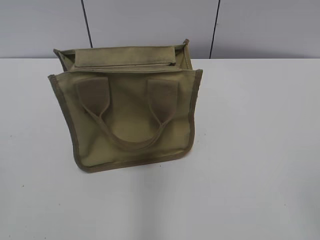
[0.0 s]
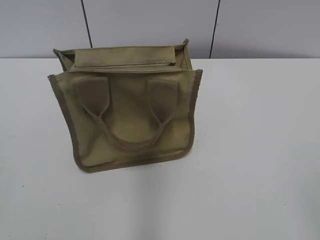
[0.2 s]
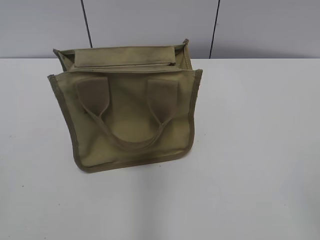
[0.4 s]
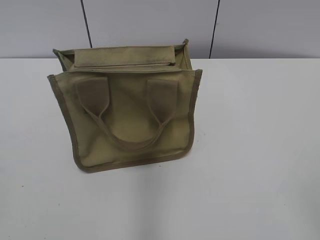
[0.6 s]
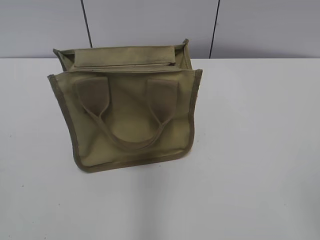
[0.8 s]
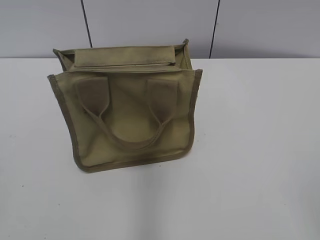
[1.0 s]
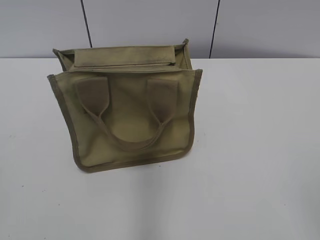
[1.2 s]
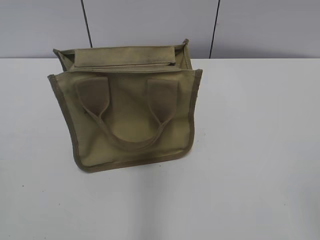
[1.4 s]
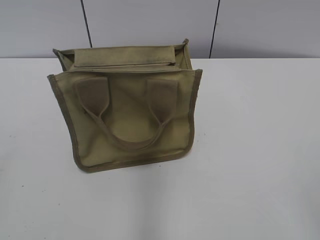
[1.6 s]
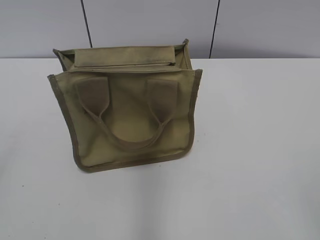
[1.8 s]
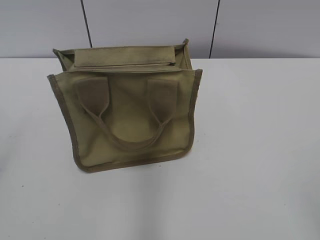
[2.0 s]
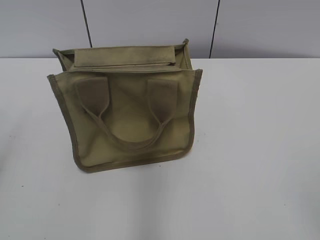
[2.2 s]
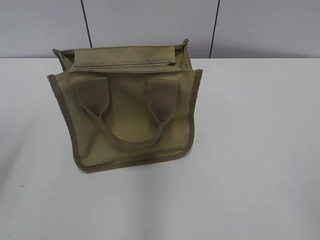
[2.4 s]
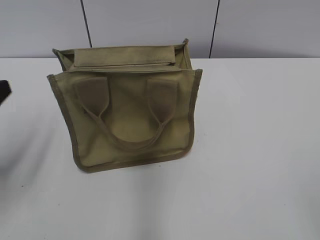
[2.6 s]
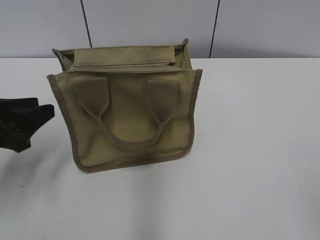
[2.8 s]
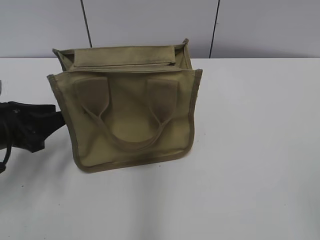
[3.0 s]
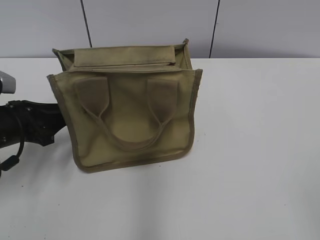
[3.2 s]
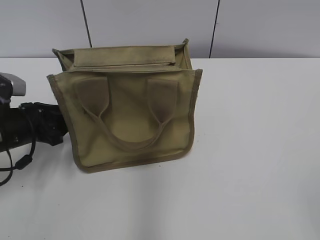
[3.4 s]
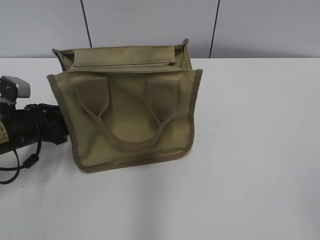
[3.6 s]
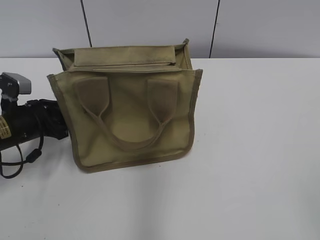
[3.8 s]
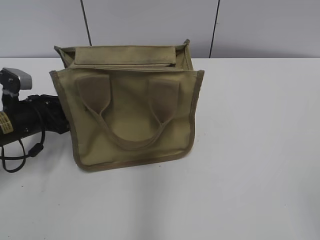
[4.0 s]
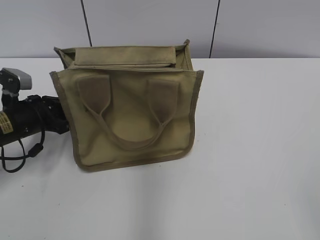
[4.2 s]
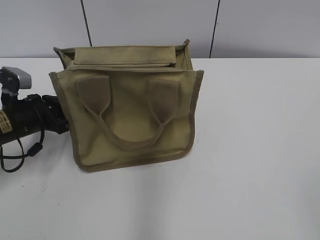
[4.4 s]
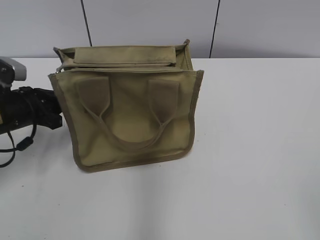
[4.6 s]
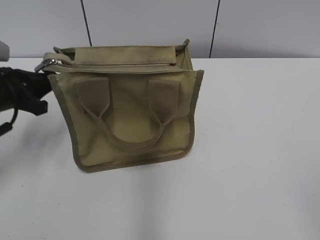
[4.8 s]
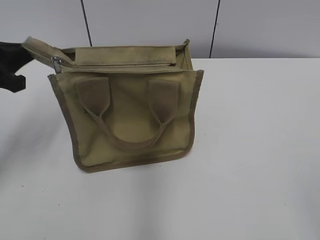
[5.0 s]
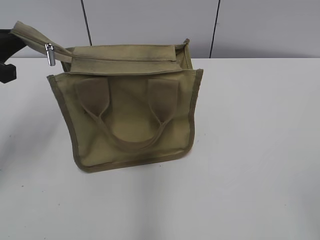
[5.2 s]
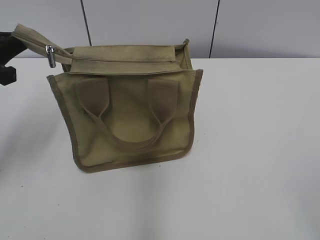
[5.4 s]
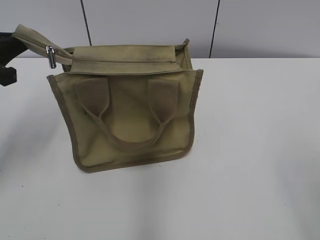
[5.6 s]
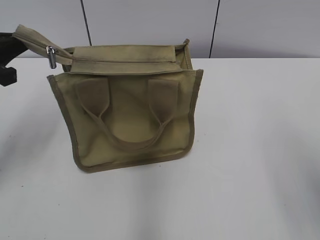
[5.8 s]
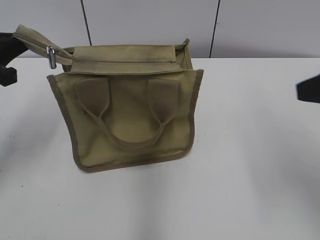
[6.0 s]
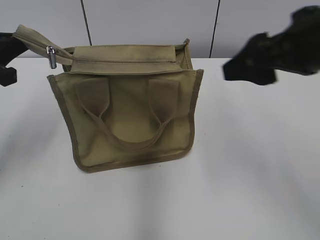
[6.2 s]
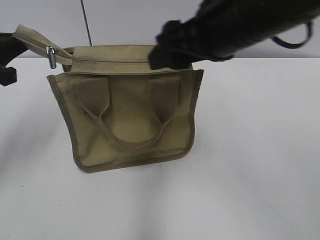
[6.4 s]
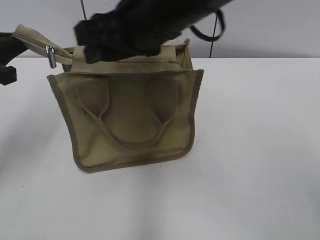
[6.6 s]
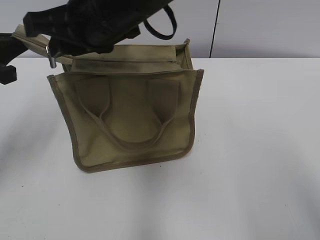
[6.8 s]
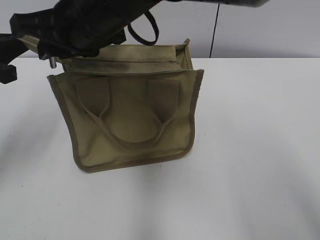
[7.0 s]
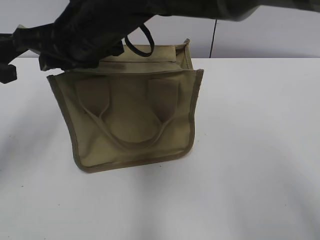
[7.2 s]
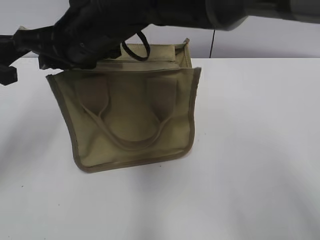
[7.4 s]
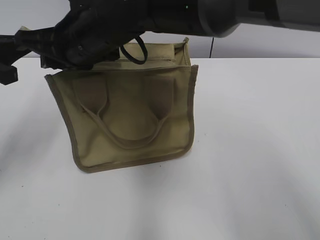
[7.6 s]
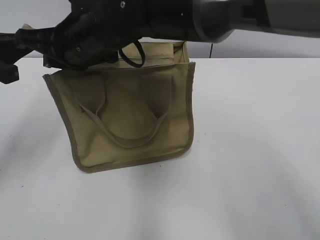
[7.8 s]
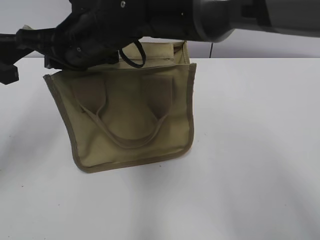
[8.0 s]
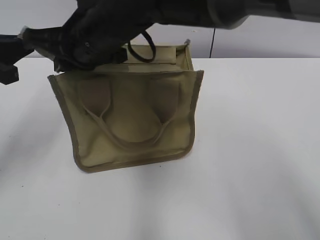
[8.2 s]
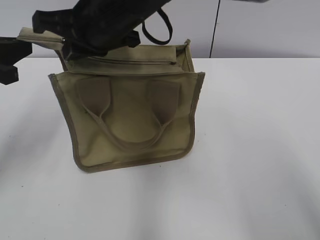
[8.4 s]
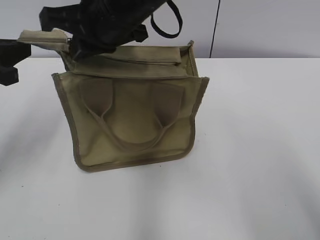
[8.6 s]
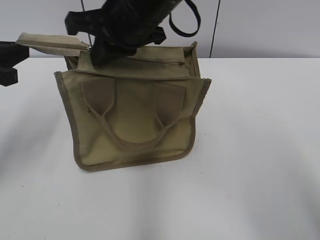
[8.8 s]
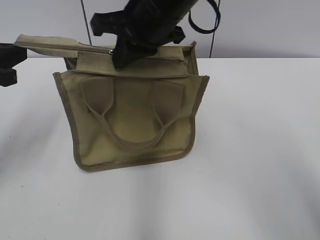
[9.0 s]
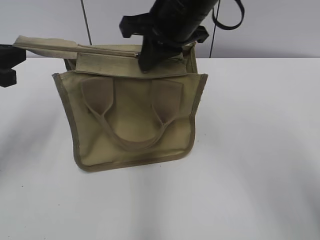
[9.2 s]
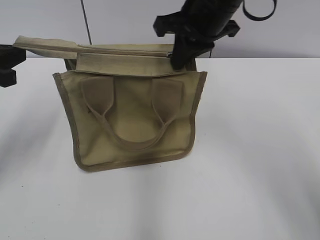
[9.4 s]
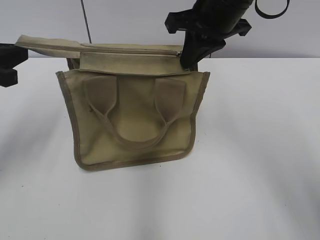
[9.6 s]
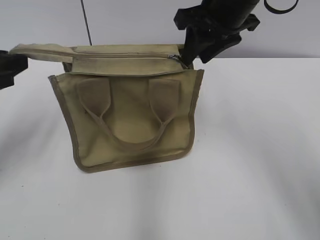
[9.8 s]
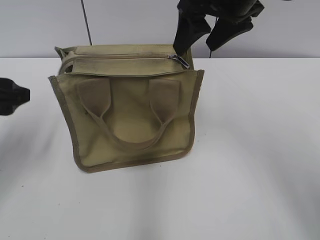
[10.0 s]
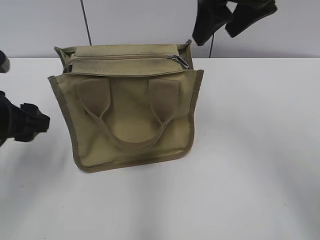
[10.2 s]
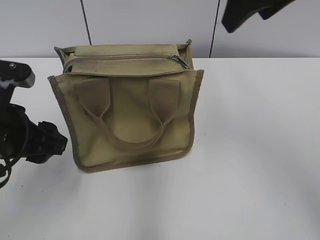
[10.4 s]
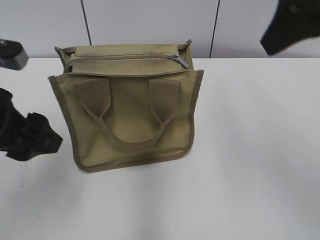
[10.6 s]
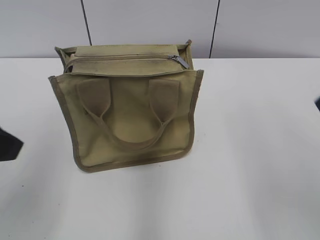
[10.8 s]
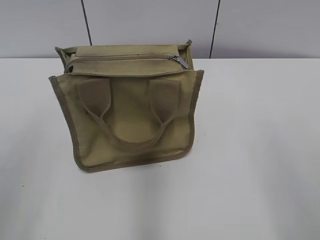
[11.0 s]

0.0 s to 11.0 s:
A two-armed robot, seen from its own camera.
Step, 0.0 to 9.6 s: Zip up the bag with your right hand.
Step, 9.8 to 10.0 s: Grab the zipper with your left hand.
1.6 to 3.2 s: The left gripper shifts some 30 cm forward and downward.
3.2 to 4.8 s: The left gripper closes up.
4.8 to 6.2 s: The right gripper travels forward by approximately 20 cm. Meanwhile the left gripper goes some 10 cm upward.
6.2 to 7.8 s: The right gripper moves to the left, approximately 30 cm, and closes.
7.8 to 9.4 s: The right gripper goes approximately 15 cm to the right.
9.4 to 11.0 s: The left gripper goes approximately 20 cm backward and upward, and opens up. The right gripper is displaced backward and to the right by about 30 cm, and opens.
